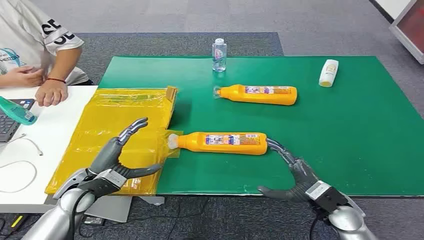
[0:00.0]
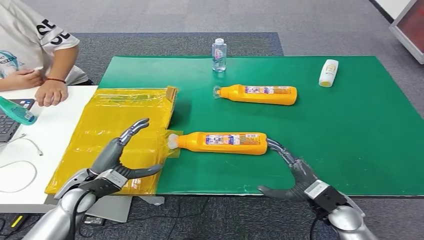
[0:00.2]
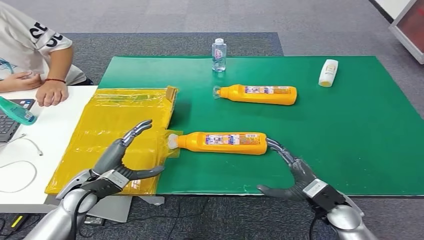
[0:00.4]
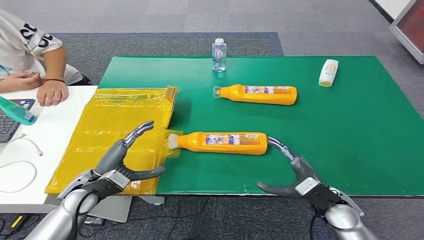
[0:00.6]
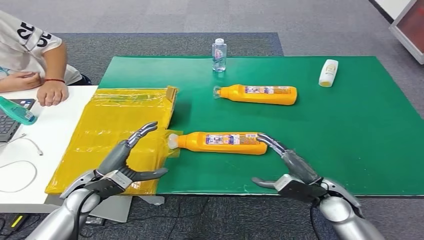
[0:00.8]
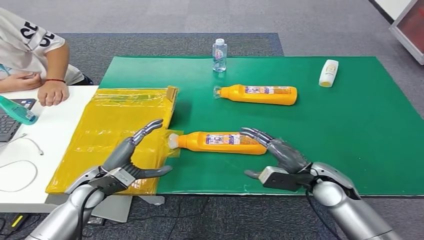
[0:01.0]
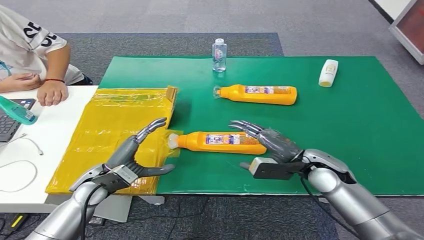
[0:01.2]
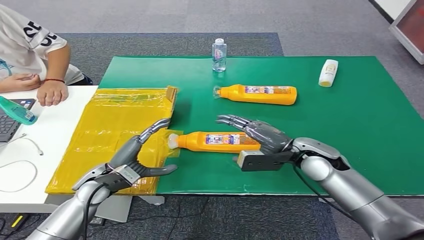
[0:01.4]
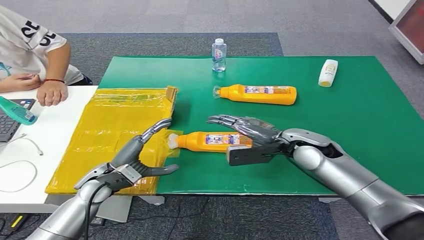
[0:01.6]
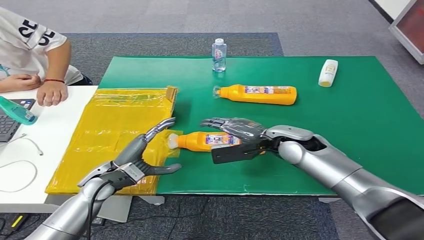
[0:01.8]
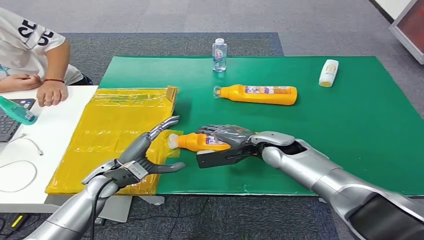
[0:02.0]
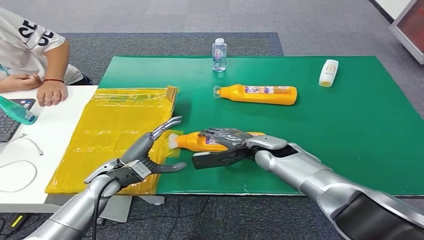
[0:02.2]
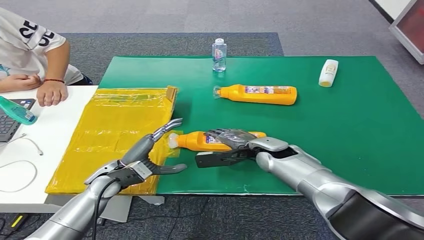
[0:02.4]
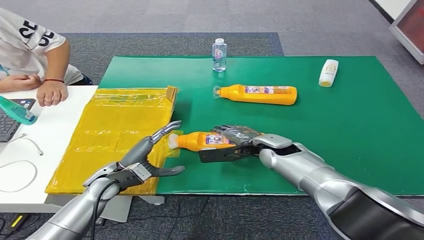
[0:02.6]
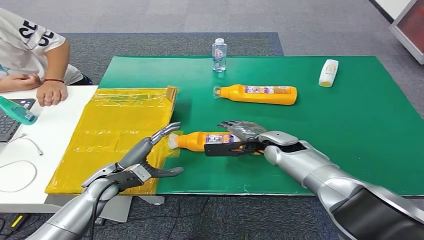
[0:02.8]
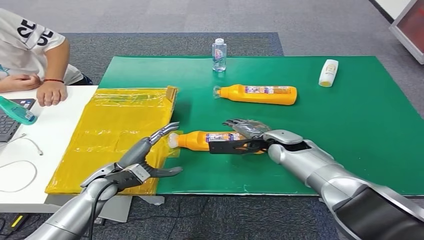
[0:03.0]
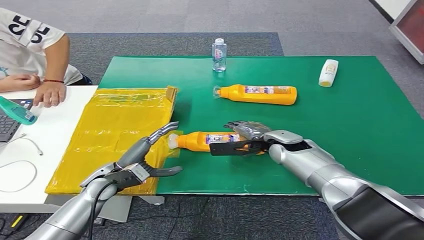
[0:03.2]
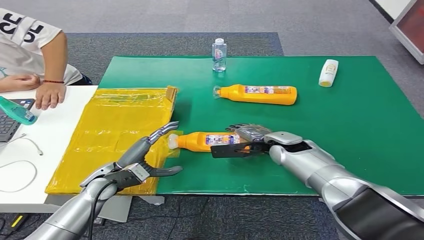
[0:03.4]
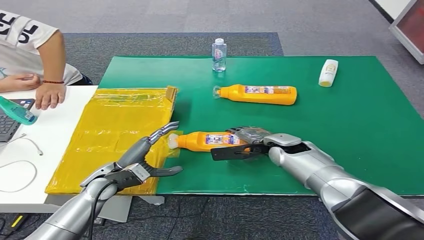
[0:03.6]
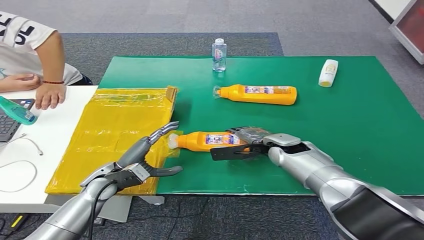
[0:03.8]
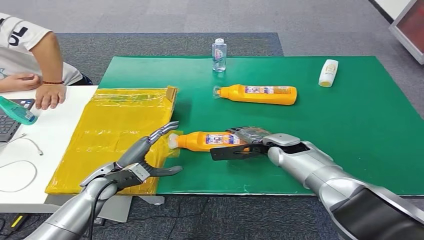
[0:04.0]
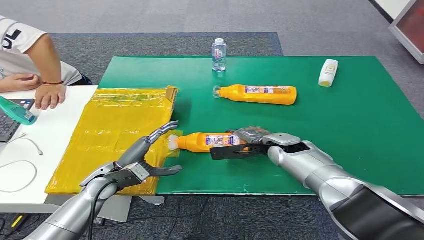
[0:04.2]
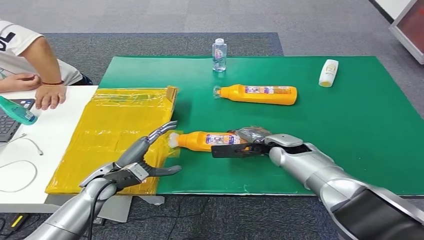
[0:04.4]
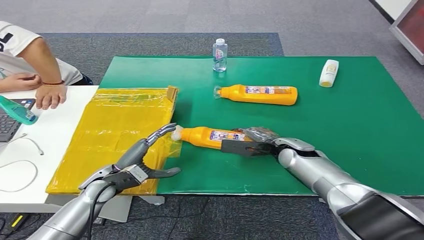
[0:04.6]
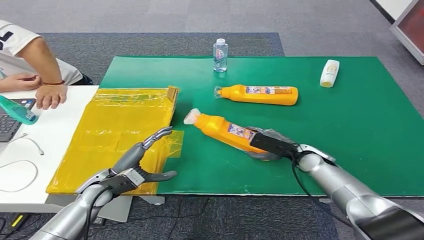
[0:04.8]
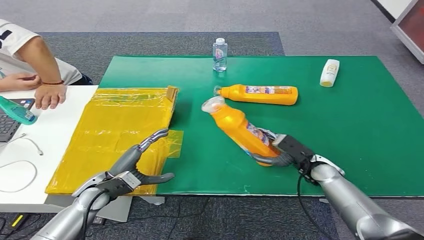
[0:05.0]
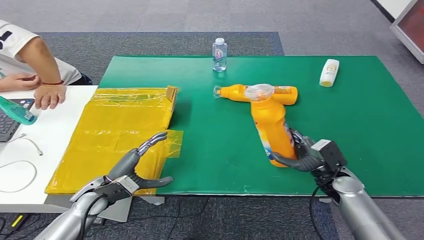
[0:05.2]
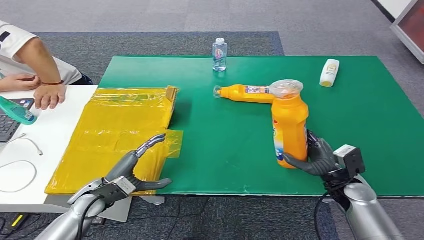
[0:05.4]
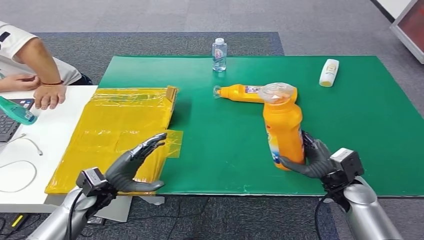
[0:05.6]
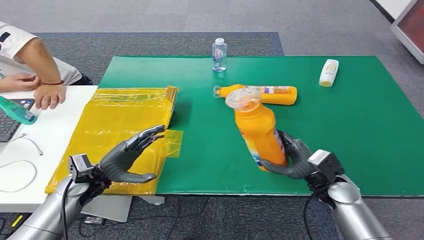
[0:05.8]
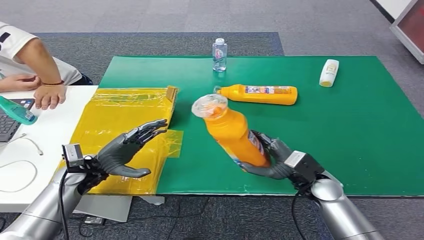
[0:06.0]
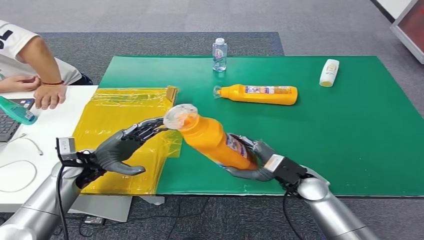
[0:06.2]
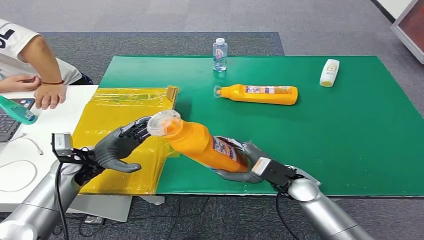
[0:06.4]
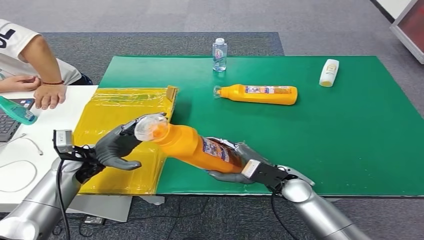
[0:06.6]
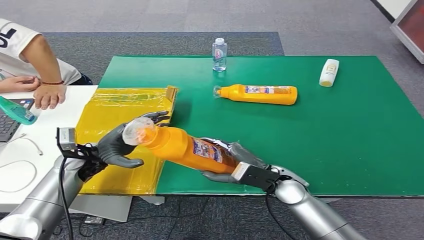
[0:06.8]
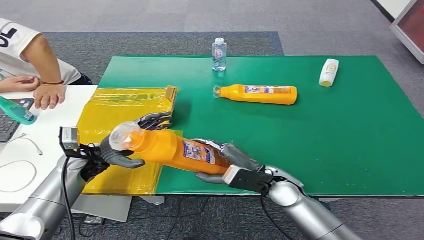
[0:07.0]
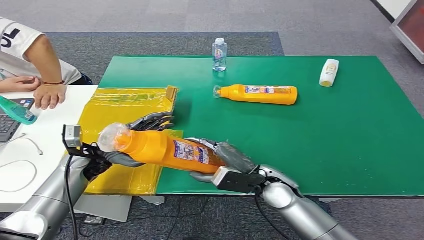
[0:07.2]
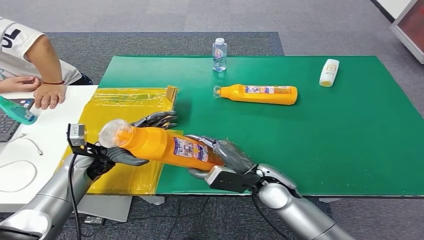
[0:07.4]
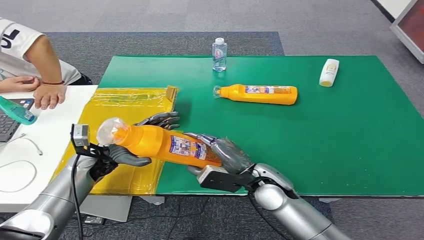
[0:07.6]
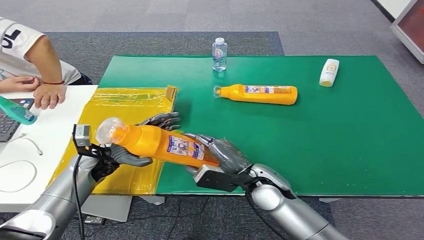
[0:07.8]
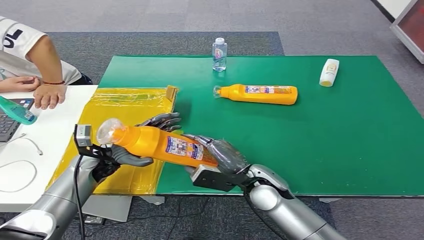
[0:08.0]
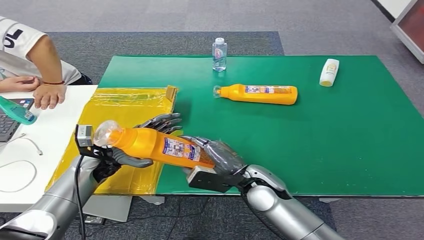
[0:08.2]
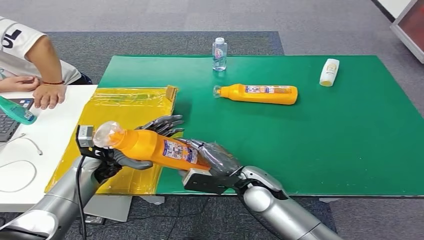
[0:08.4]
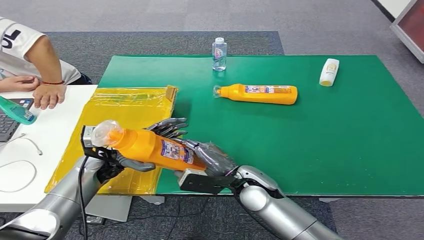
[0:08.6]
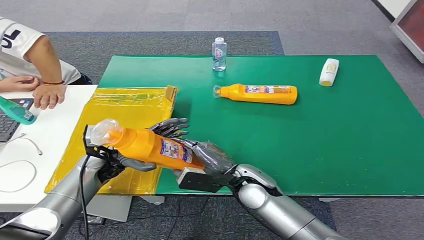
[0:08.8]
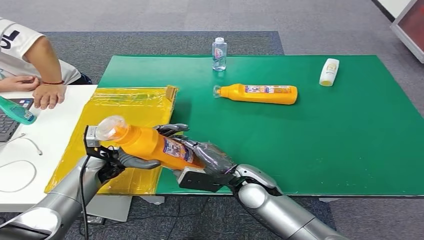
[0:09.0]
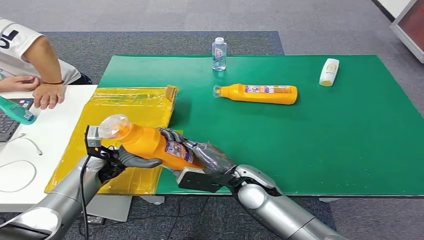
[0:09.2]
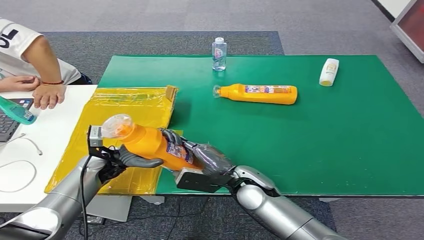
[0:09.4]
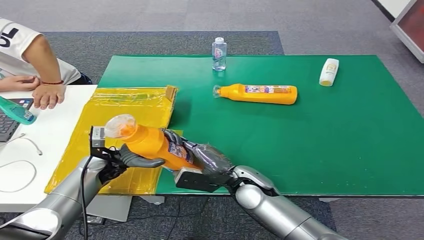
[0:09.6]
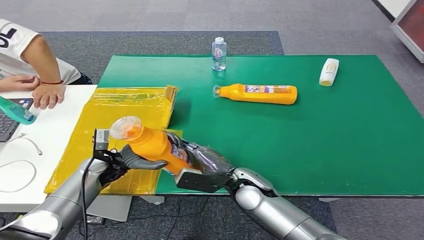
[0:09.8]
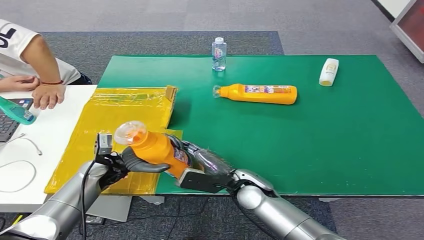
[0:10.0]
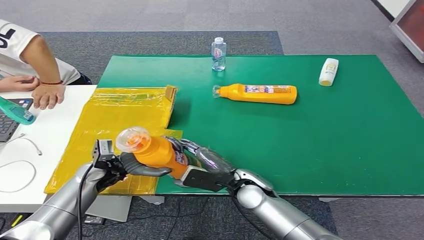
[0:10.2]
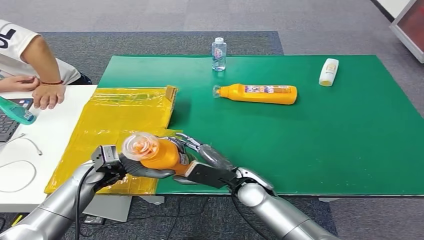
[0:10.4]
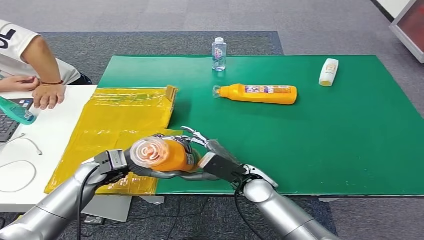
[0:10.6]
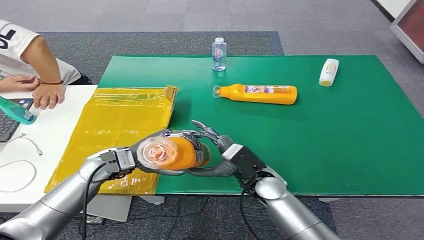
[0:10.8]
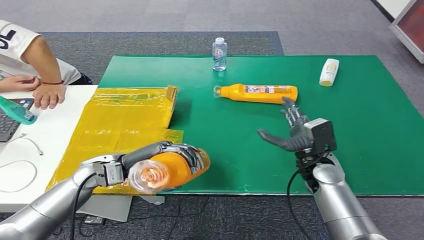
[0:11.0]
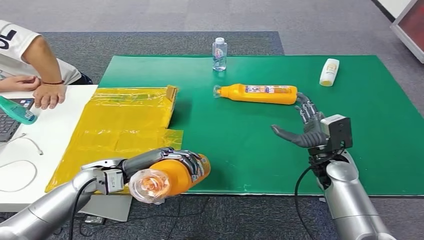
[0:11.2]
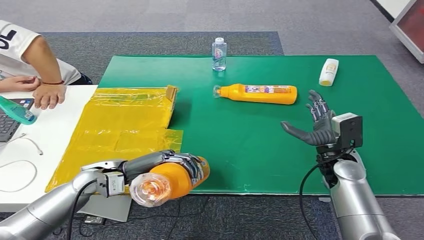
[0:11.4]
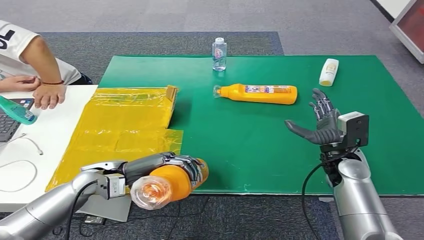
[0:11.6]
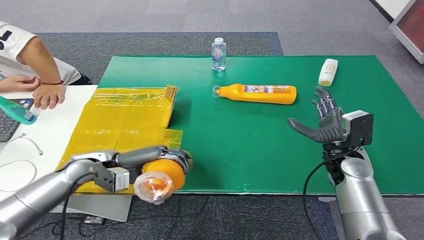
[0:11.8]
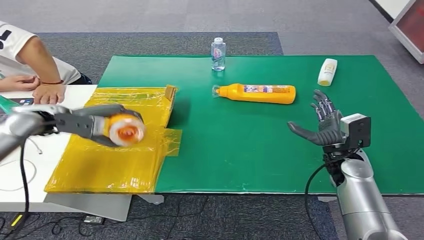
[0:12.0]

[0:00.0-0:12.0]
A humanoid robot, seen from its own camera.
Step, 0:00.0 to 0:06.2: Pick up the bottle from the table.
0:01.6 to 0:03.0: The right hand moves downward, roughly 5 cm.
0:03.0 to 0:04.4: The hands stay close to where they were, moving slightly.
0:06.0 to 0:07.6: The right hand travels to the left by roughly 10 cm.
0:07.6 to 0:10.4: The hands move only a little.

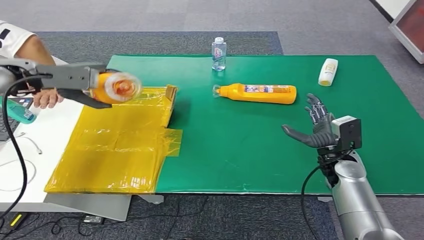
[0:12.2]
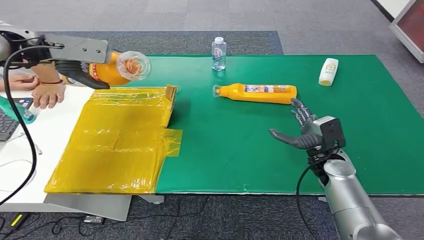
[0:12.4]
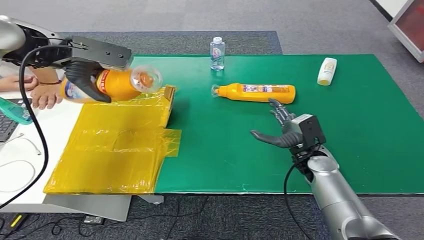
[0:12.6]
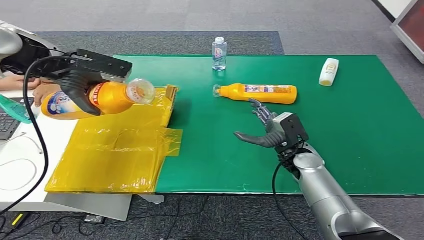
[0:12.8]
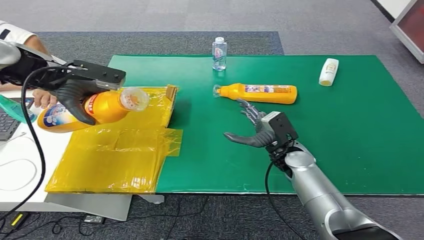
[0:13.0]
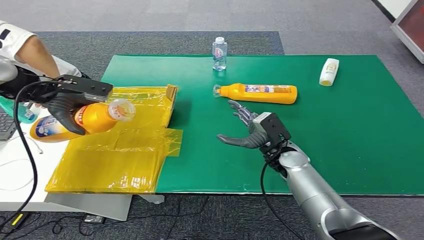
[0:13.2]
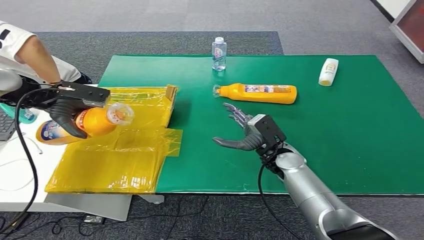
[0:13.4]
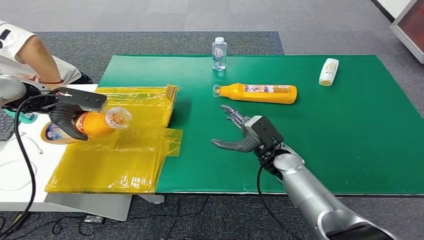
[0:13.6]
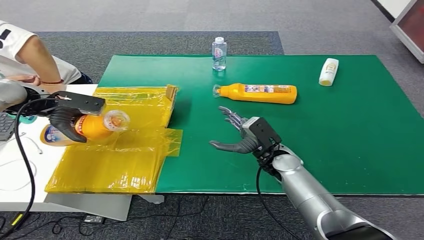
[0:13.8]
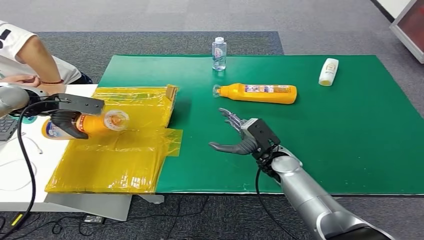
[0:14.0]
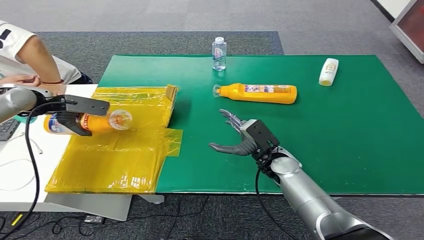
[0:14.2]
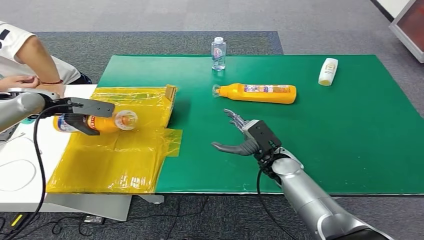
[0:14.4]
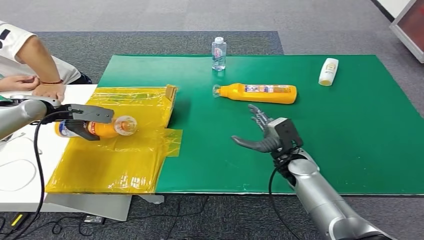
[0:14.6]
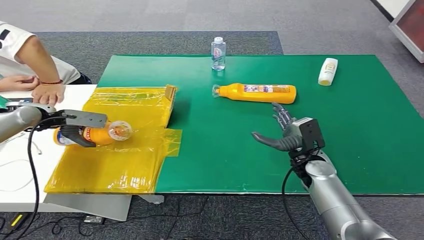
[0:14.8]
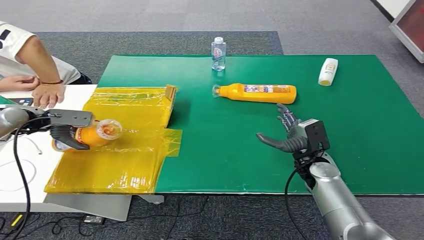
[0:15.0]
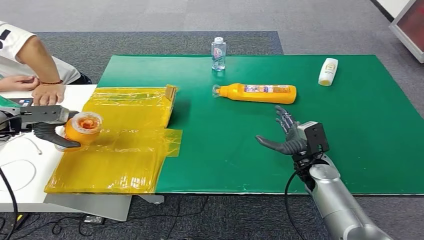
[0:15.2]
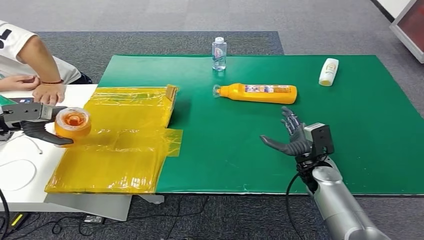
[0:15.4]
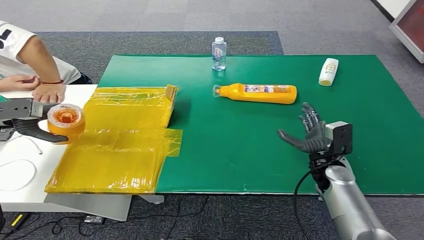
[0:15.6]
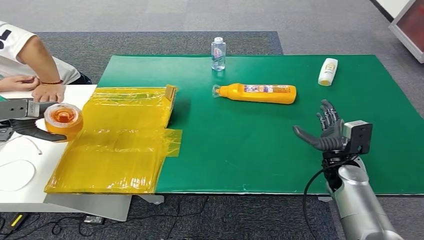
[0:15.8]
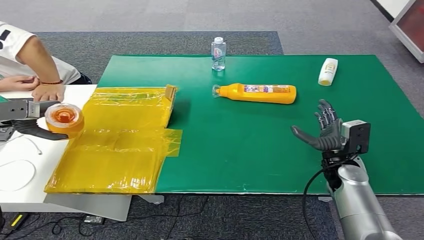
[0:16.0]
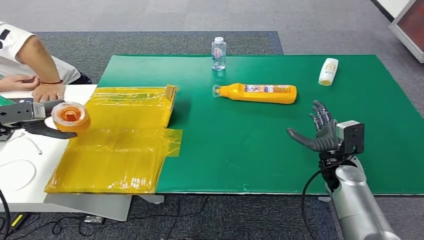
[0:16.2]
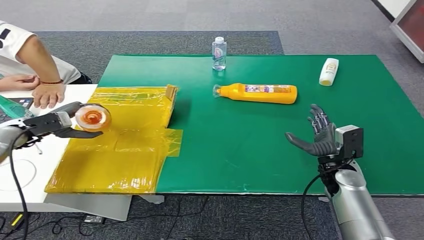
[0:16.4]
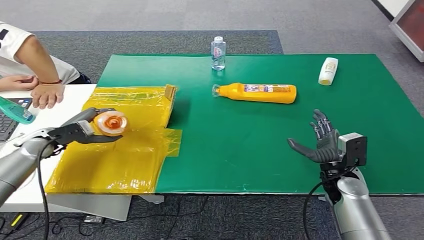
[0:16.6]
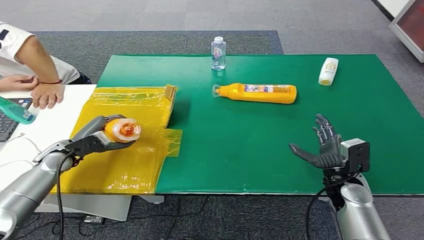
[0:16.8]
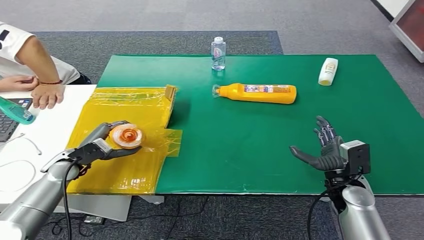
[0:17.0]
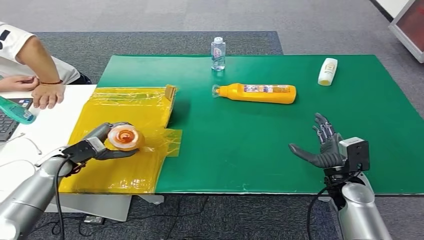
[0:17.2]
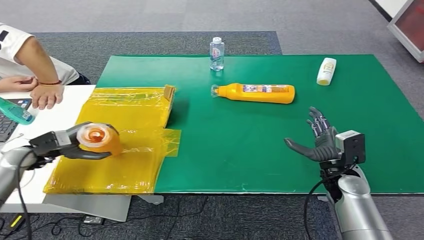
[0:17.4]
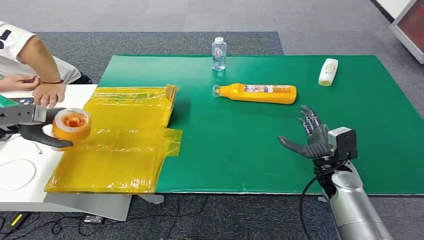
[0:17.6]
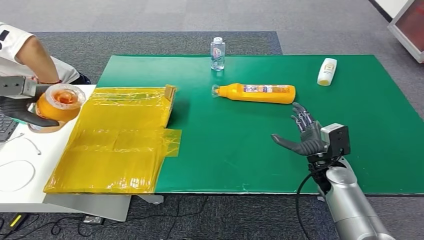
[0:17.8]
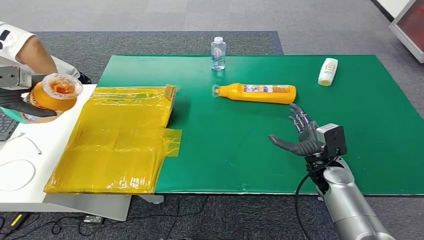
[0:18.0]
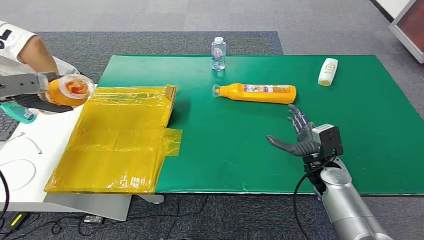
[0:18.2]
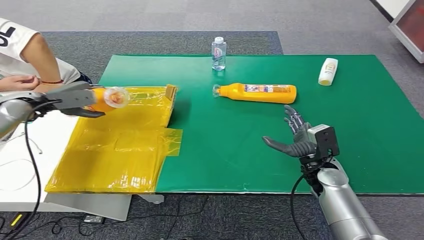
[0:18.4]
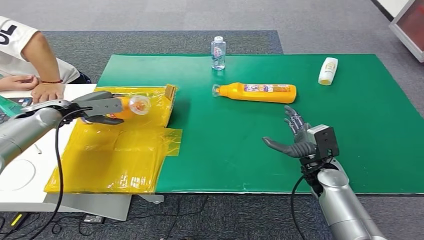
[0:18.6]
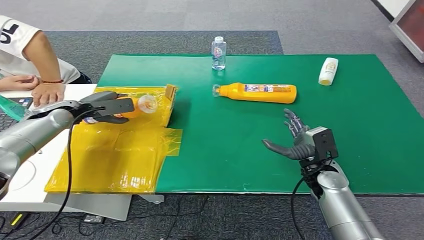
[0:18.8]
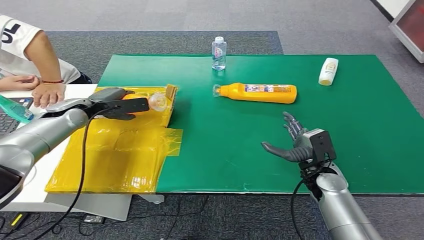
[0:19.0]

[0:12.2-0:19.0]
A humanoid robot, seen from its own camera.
0:12.2 to 0:13.6: The left hand is displaced downward by approximately 5 cm, while the right hand is displaced to the left by approximately 15 cm.
0:13.6 to 0:15.0: The left hand is displaced downward by about 10 cm; the right hand heads to the right, covering roughly 10 cm.
0:15.0 to 0:16.2: The right hand shifts about 5 cm to the right. Meanwhile the left hand moves approximately 5 cm.
0:16.2 to 0:17.6: The left hand travels downward and back again, about 15 cm each way.
0:17.6 to 0:19.0: The left hand moves to the right and forward, approximately 15 cm, and reaches approximately 10 cm upward, then returns.
